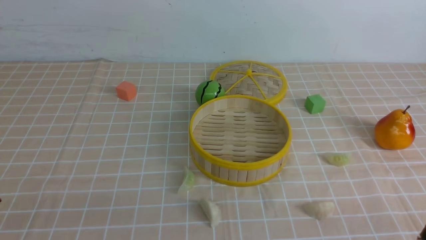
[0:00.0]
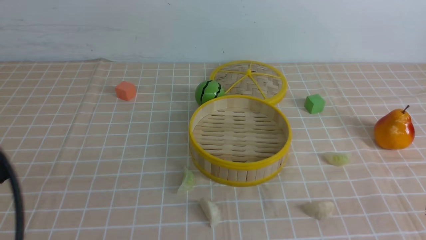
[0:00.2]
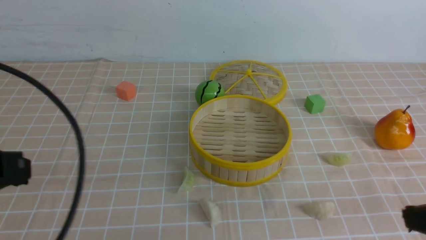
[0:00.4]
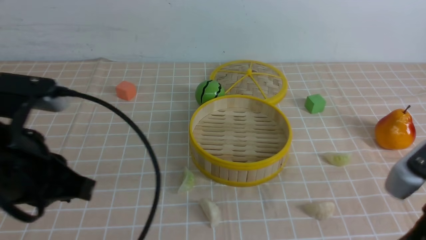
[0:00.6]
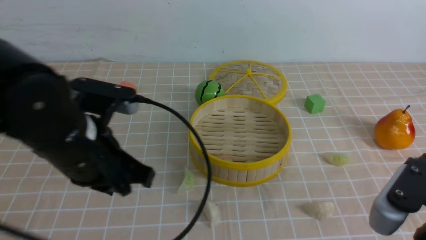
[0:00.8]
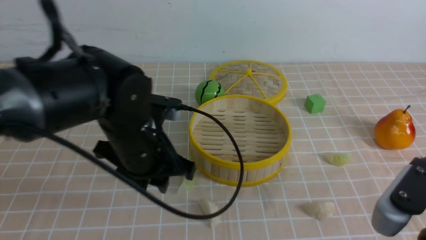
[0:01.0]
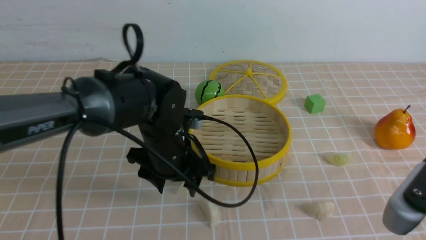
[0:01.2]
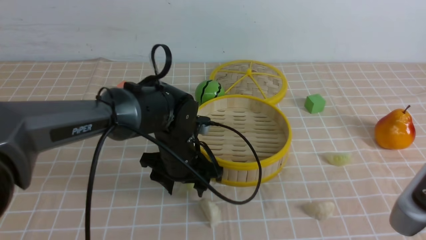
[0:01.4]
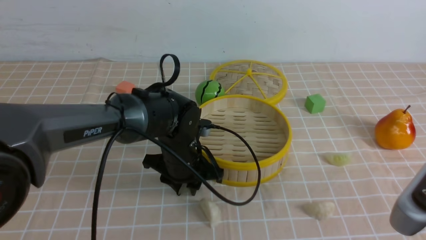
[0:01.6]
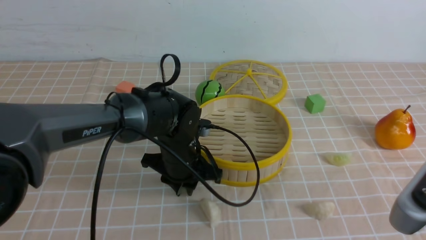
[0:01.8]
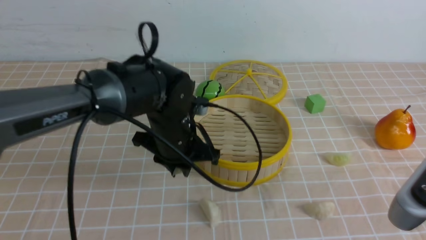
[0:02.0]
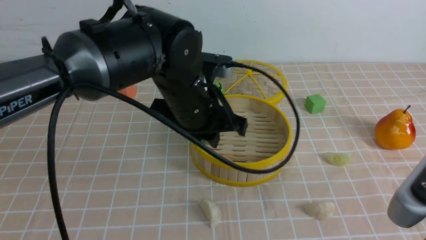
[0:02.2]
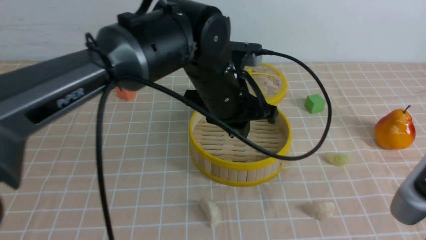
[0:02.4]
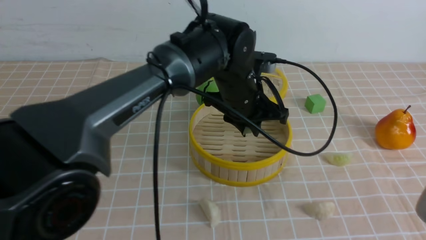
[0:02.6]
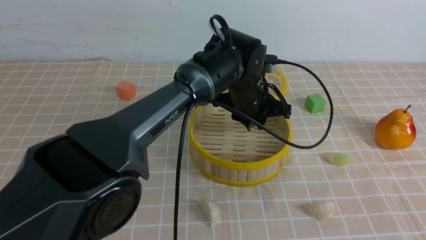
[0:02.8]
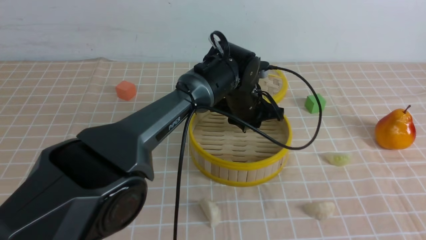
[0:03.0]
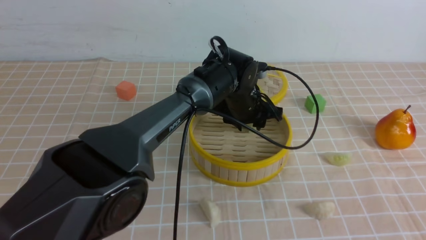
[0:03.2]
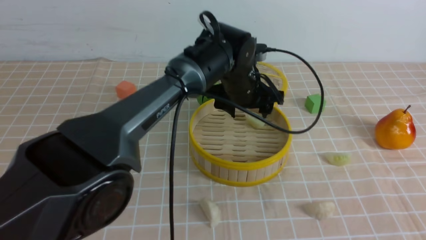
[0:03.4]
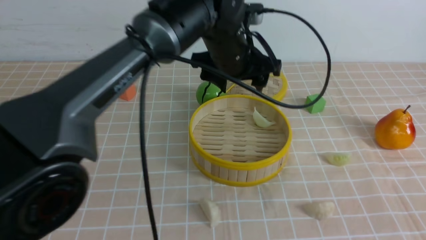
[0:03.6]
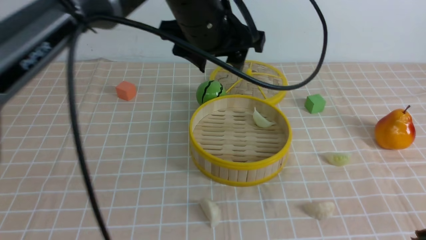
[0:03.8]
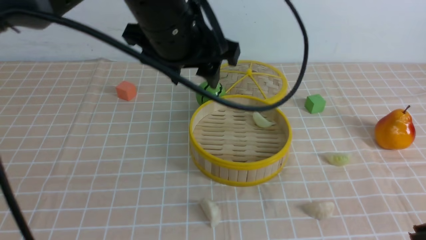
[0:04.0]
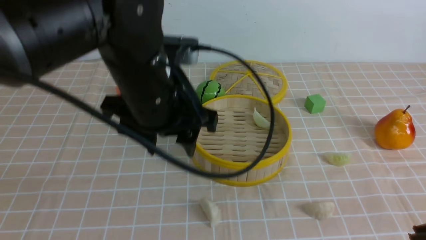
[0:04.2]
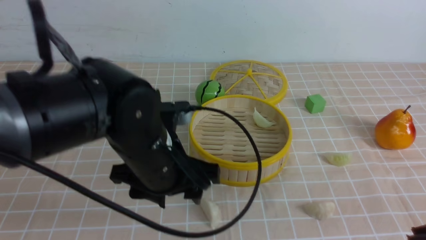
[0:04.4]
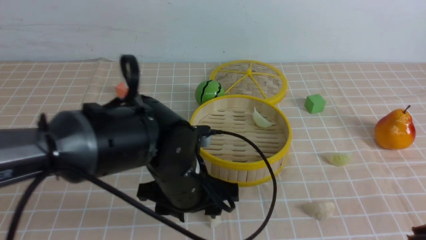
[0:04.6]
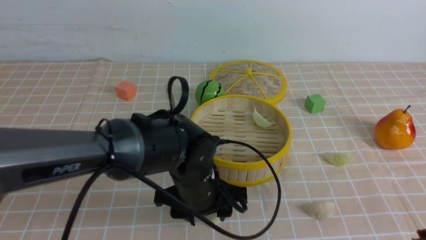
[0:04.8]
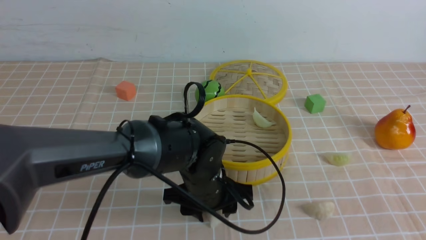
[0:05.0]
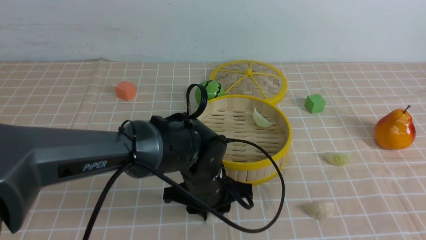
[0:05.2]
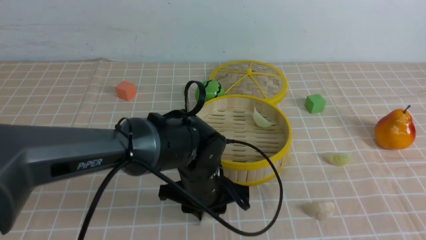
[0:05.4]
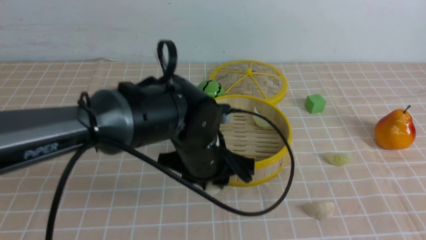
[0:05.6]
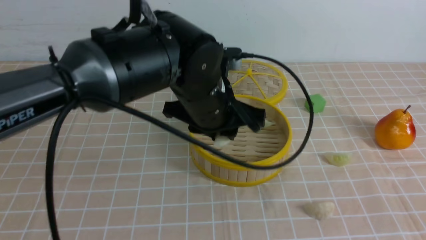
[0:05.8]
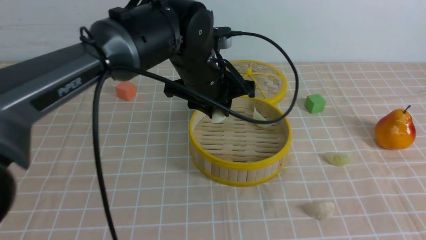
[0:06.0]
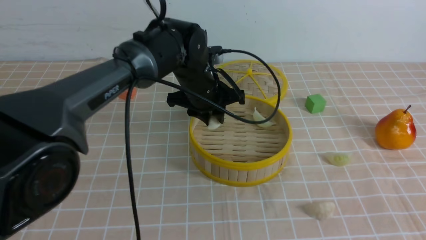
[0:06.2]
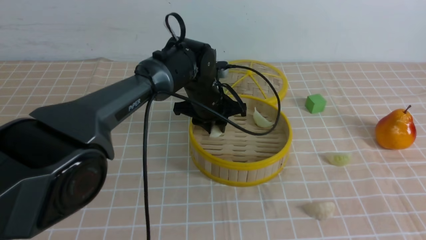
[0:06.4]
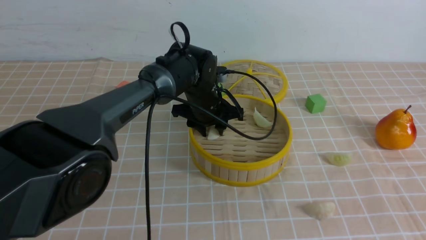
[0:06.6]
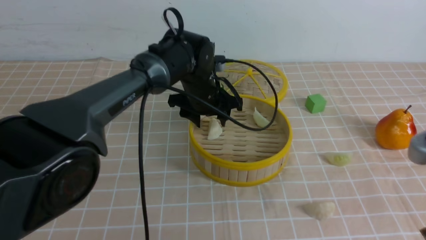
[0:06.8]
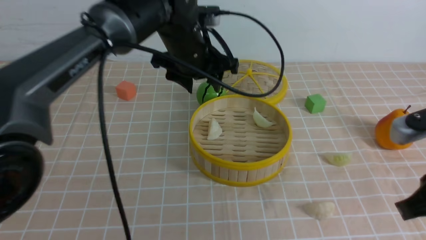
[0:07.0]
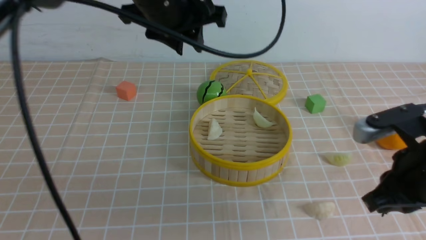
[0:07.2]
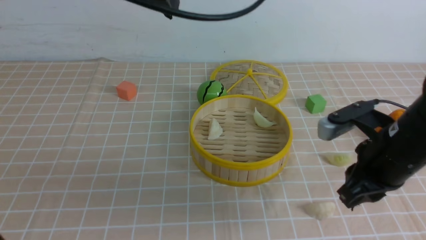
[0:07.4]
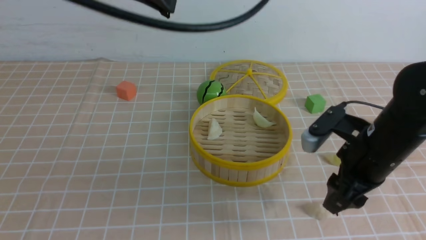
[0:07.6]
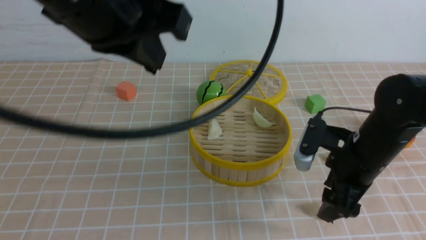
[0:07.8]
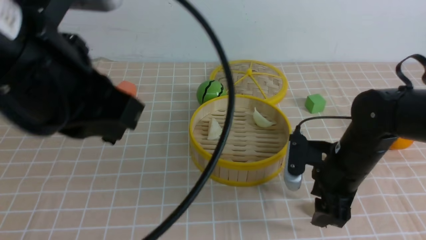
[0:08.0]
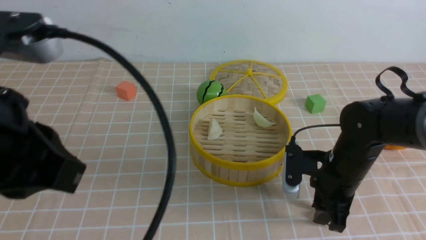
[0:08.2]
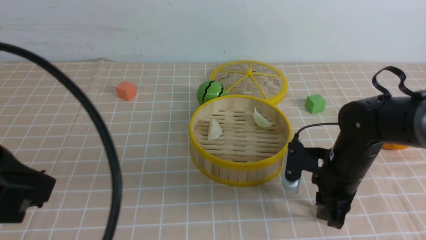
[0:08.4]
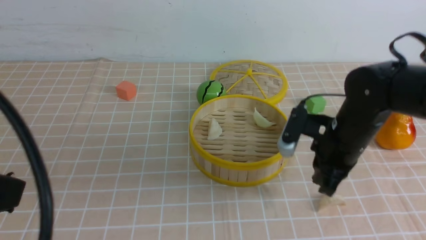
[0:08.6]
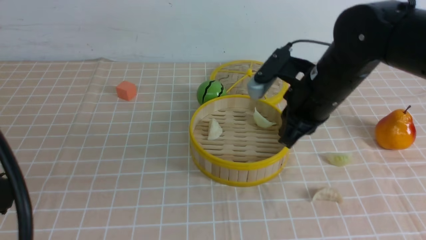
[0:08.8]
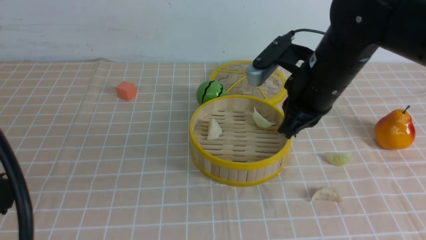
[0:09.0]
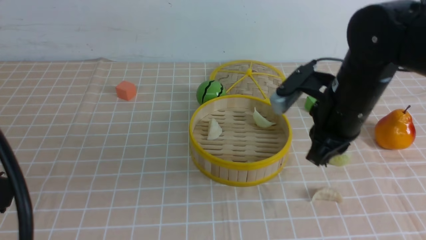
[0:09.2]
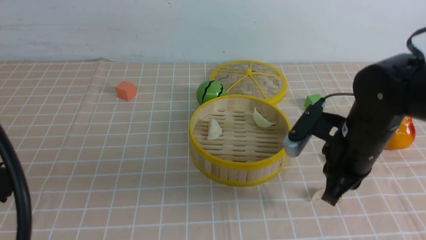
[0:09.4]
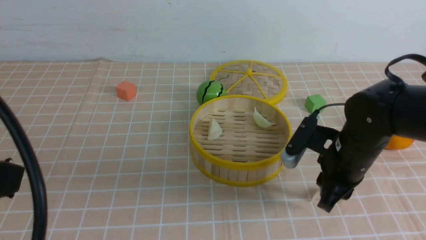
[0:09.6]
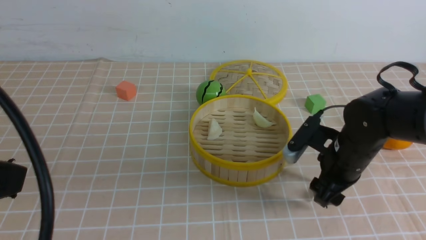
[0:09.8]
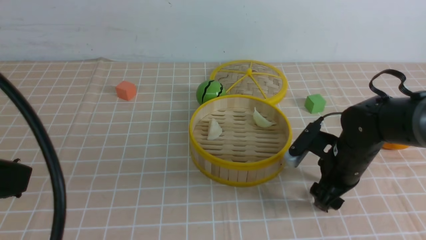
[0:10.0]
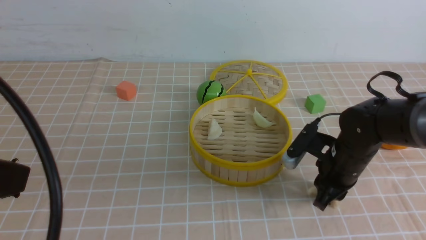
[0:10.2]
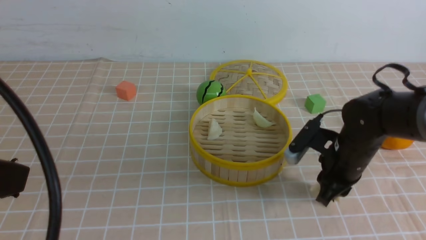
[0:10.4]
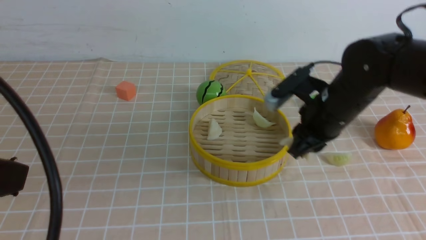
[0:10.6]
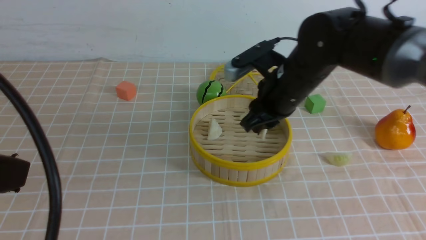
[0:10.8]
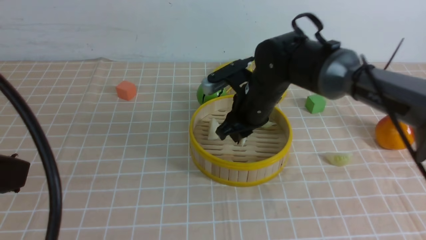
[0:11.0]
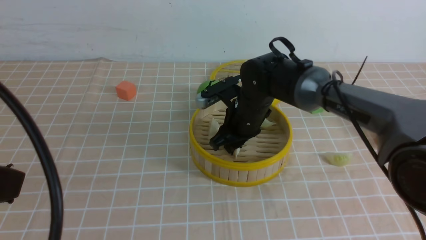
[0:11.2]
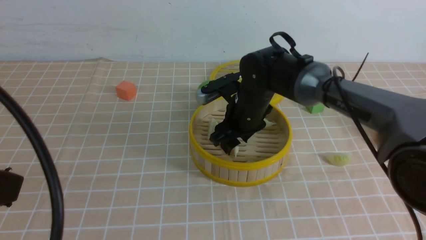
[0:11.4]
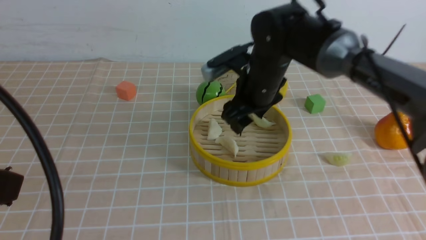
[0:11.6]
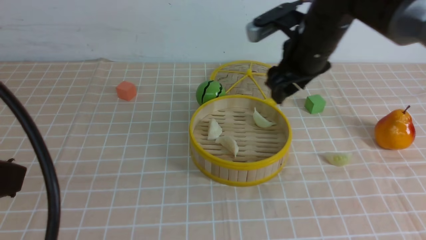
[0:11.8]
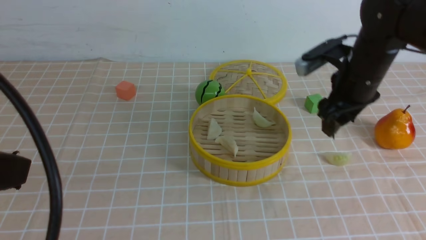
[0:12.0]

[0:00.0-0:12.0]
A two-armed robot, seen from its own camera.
Task of the whole recording: put the dumplings into the steamer on the table with the brown tablecloth.
Step, 1.8 to 3.4 s: use the left arm to put the dumpling into the steamer.
Step, 3.6 to 5.2 s: use the left arm to grab a dumpling.
Step, 5.4 to 6.8 s: use the left arm to put the dumpling into the steamer.
Step, 7.0 to 10.2 s: use the right arm to grab a dumpling.
Step, 10.4 to 11.4 s: use the right arm to put the dumpling into the steamer.
0.0 to 1.6 s: The left gripper shifts approximately 35 cm forward, to the right and downward, while the right gripper moves upward and to the left, about 10 cm.
1.6 to 3.0 s: The right gripper shifts by approximately 5 cm; the left gripper moves to the right, forward and upward, approximately 15 cm.
3.0 to 4.4 s: The left gripper moves backward and to the left, some 20 cm, and opens its fingers.
4.4 to 6.0 s: The left gripper travels forward by some 10 cm, and closes.
6.0 to 7.6 s: The left gripper shifts some 25 cm upward, backward and to the left, and closes its fingers. Meanwhile the right gripper heads forward and downward, covering some 25 cm, and opens its fingers.
7.6 to 9.0 s: The right gripper goes about 10 cm upward and to the left, and closes up; the left gripper is displaced backward and to the left by approximately 20 cm.
9.0 to 10.4 s: The right gripper travels downward by about 10 cm, and opens.
10.4 to 12.0 s: The right gripper moves upward and forward, about 10 cm, reaches approximately 15 cm to the left, then returns, and opens.

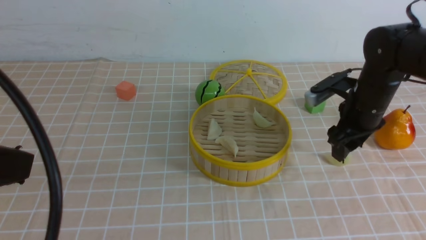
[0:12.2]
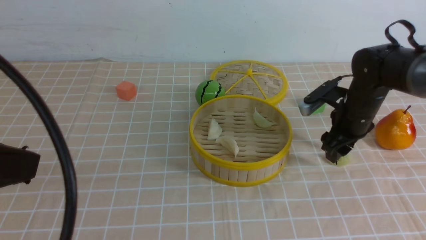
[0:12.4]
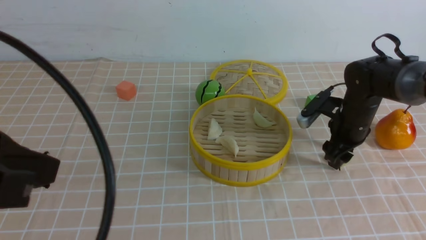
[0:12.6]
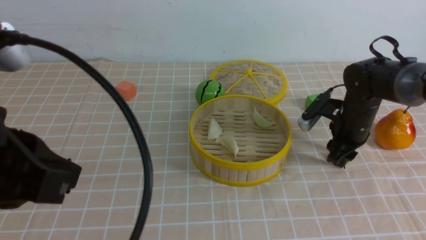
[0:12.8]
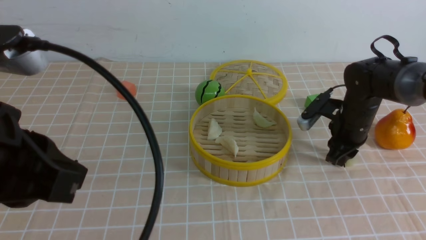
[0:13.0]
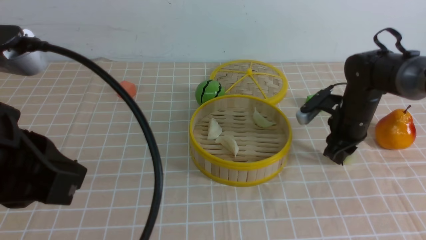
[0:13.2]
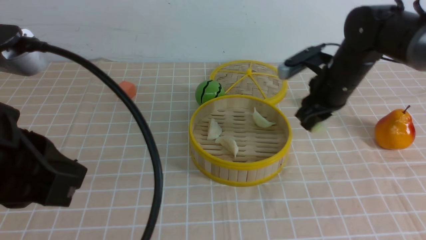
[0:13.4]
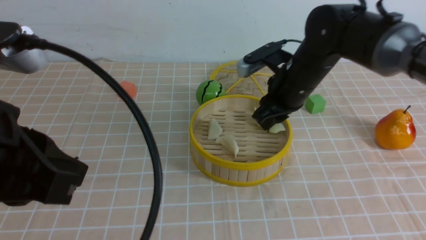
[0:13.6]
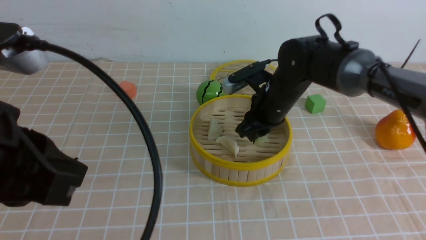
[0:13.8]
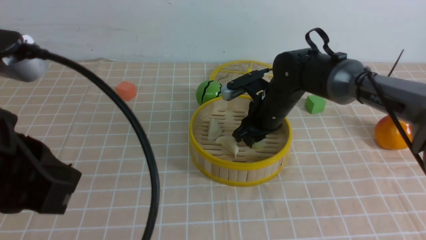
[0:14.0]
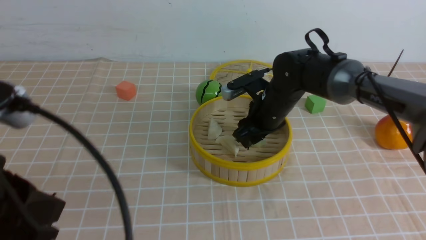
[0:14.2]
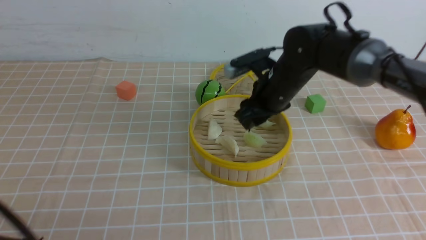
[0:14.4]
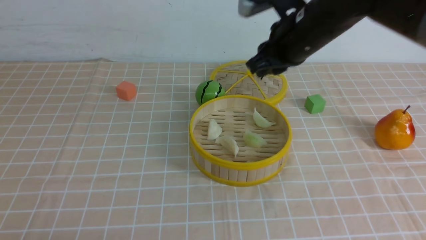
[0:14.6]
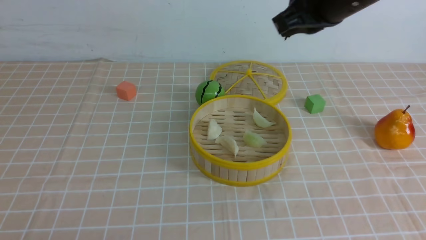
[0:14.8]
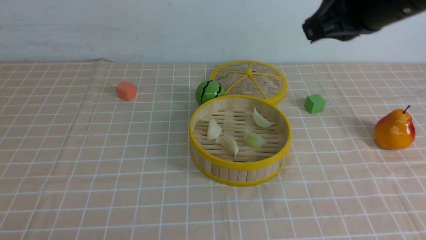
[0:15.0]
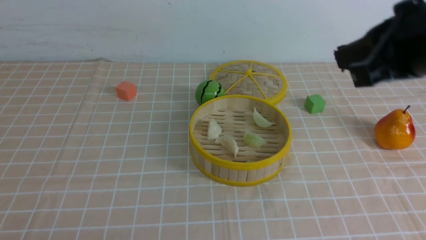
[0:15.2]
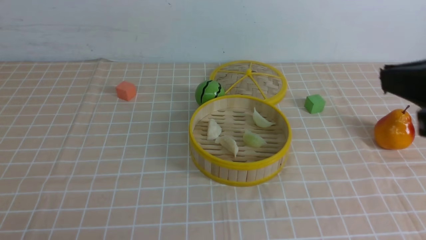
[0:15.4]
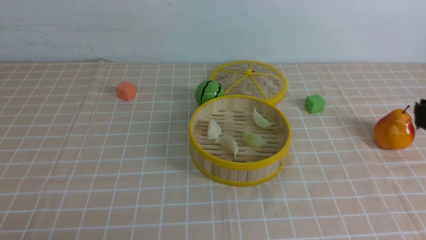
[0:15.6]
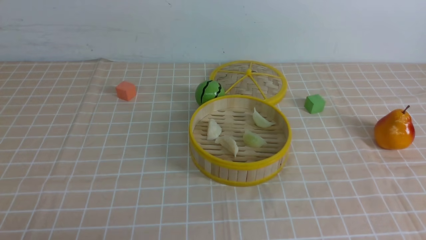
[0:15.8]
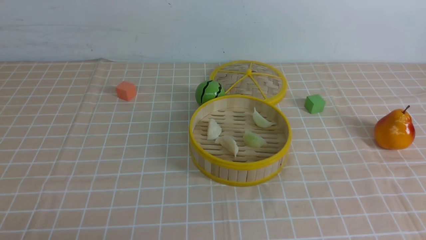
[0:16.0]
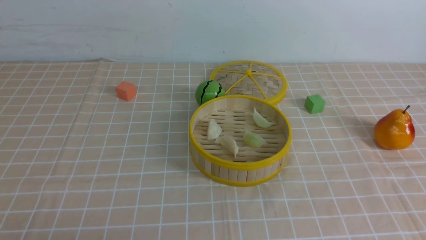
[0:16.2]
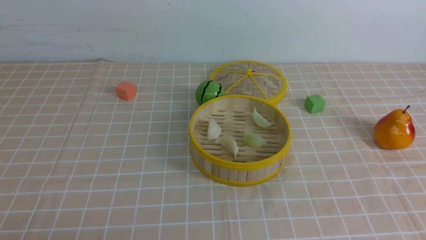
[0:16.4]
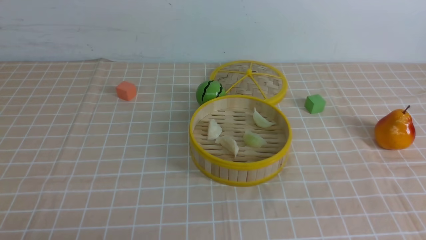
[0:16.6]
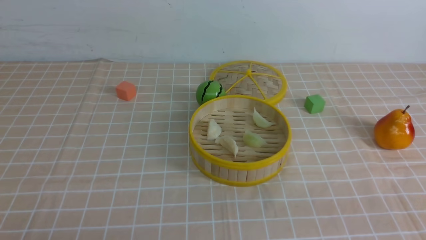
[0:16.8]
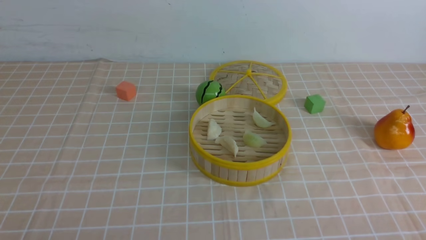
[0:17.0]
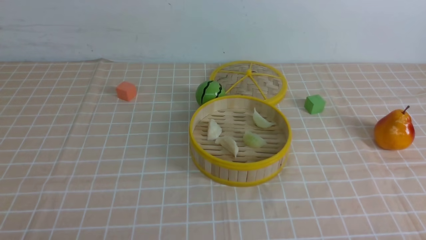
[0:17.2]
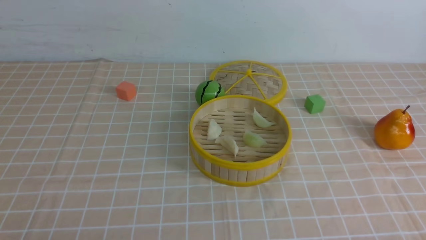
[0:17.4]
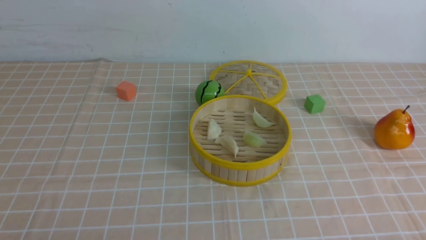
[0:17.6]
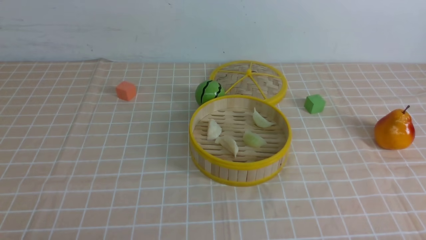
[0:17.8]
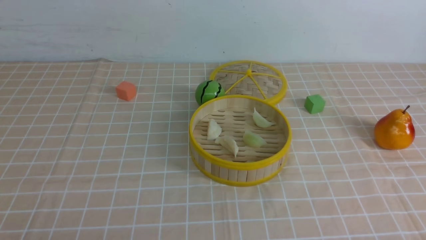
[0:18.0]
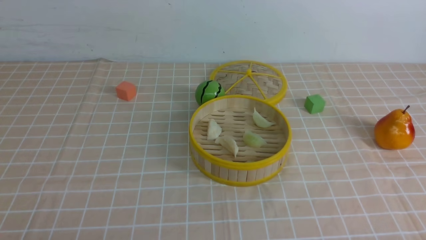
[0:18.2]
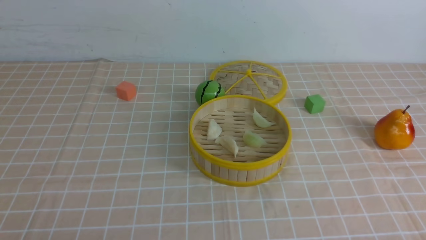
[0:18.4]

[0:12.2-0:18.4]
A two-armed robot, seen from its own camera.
Task of the whole recording: put the dumplings into the steamer on the table with the brown tablecloth.
Step, 12.2 to 13.0 s: use the right arm to grab a dumpling.
Step, 13.2 to 14.2 s: use the right arm to put the dumpling into the steamer.
12.2 to 13.8 s: The right gripper shifts some 15 cm to the left, and closes up.
13.8 to 15.4 s: The right gripper goes some 35 cm backward, upward and to the right, and closes its fingers. Meanwhile the left gripper heads downward, backward and to the left, covering about 15 cm.
15.4 to 16.8 s: The right gripper shifts some 15 cm downward, backward and to the right.
